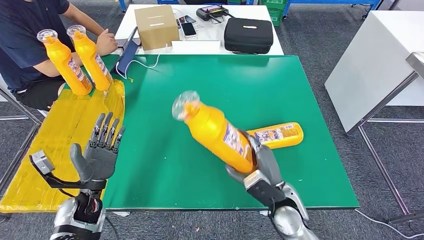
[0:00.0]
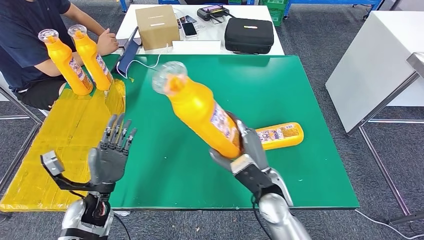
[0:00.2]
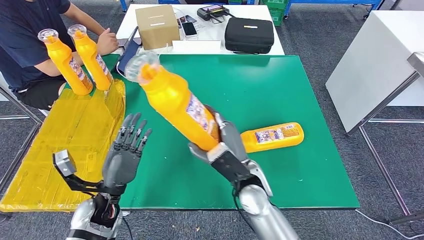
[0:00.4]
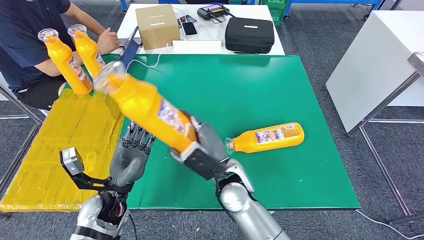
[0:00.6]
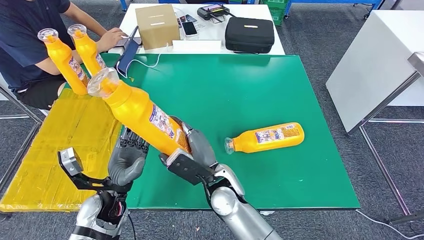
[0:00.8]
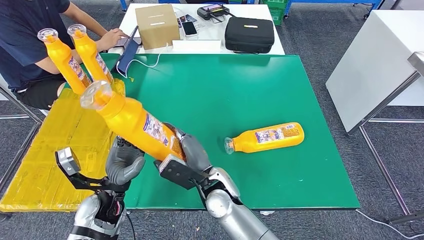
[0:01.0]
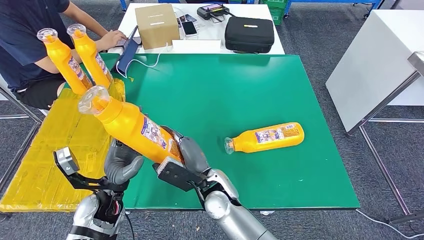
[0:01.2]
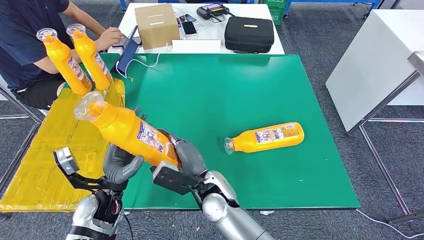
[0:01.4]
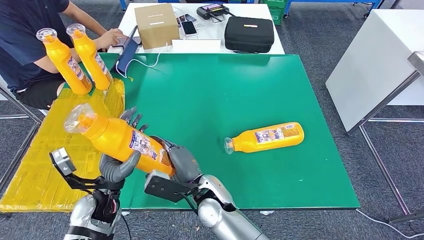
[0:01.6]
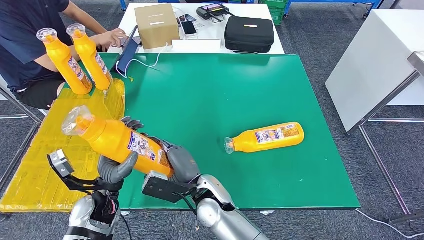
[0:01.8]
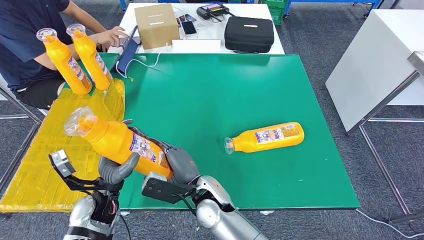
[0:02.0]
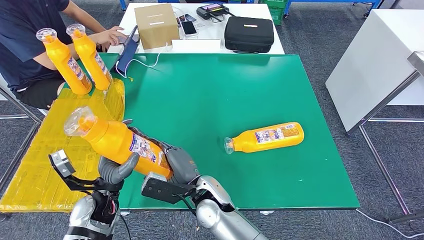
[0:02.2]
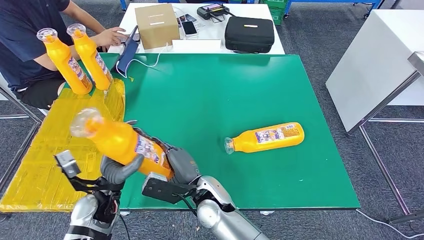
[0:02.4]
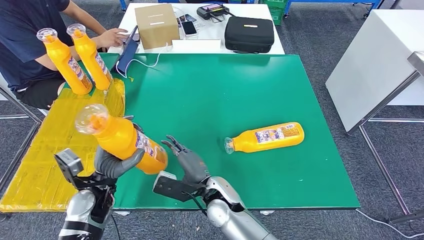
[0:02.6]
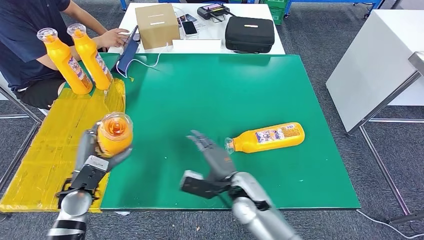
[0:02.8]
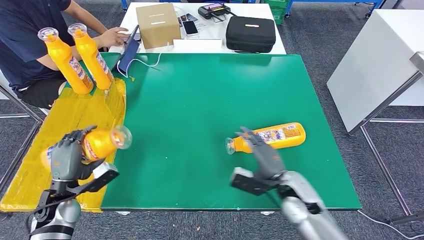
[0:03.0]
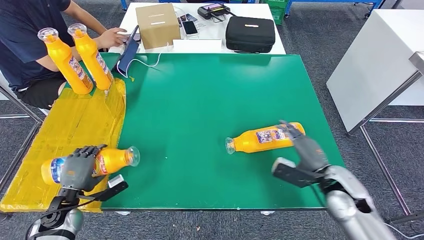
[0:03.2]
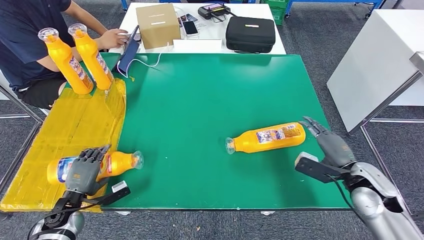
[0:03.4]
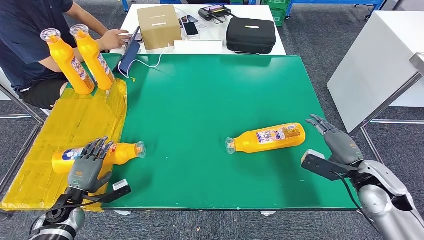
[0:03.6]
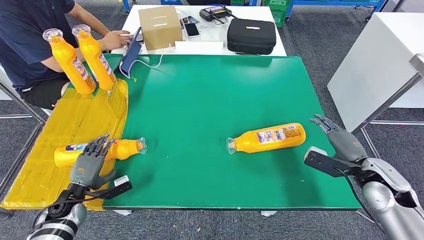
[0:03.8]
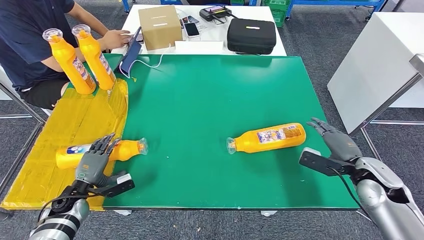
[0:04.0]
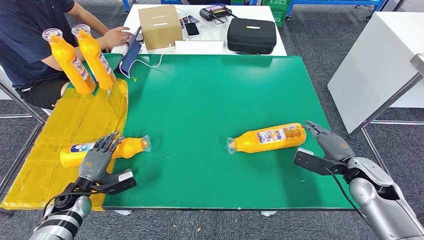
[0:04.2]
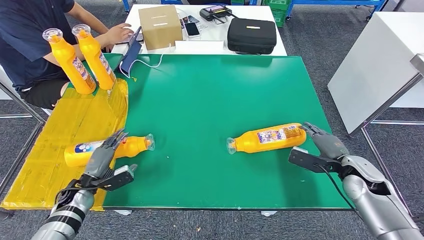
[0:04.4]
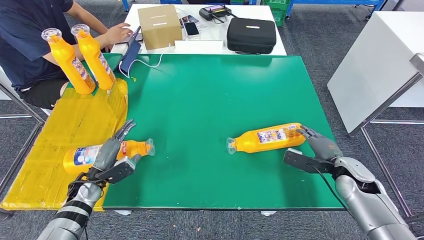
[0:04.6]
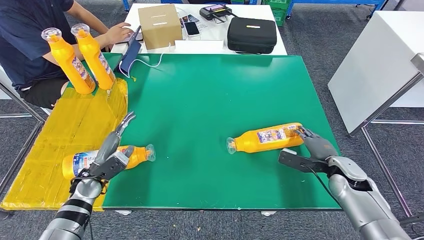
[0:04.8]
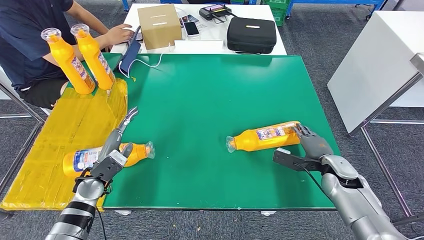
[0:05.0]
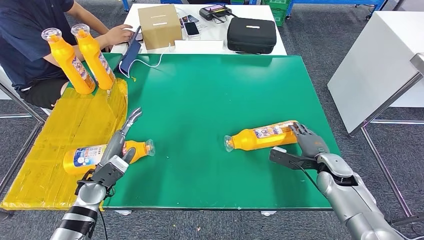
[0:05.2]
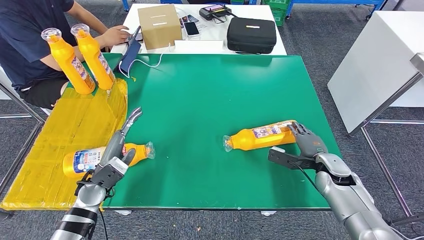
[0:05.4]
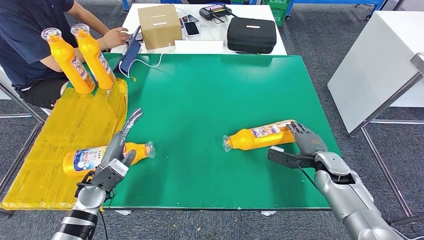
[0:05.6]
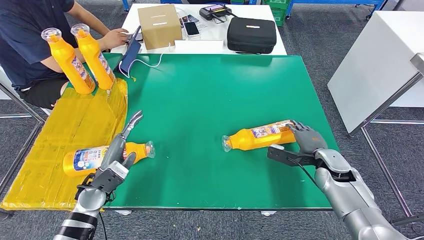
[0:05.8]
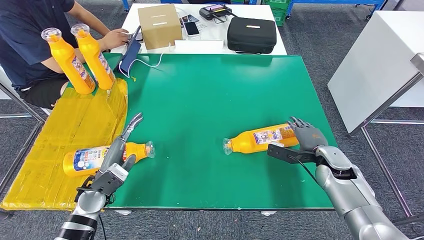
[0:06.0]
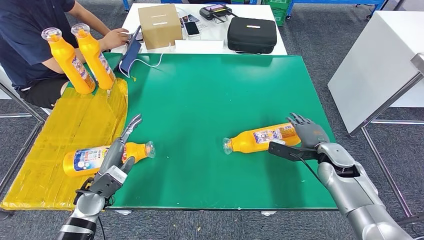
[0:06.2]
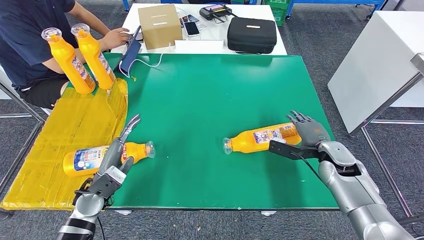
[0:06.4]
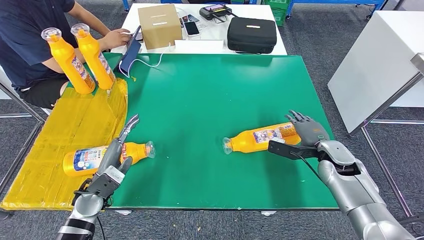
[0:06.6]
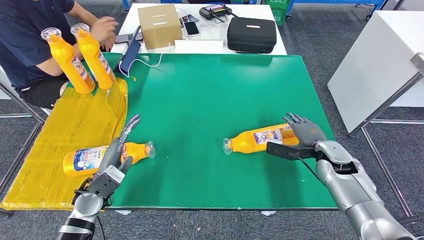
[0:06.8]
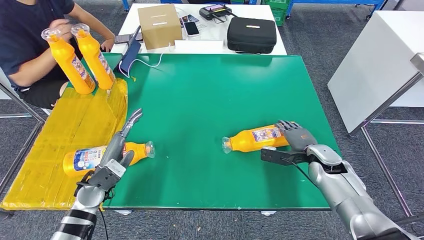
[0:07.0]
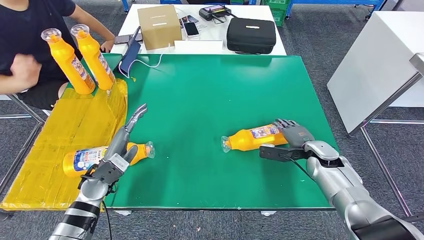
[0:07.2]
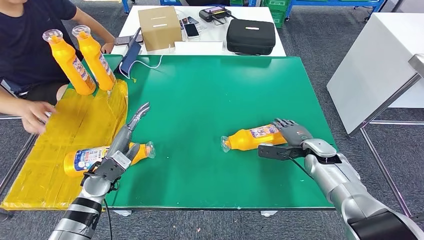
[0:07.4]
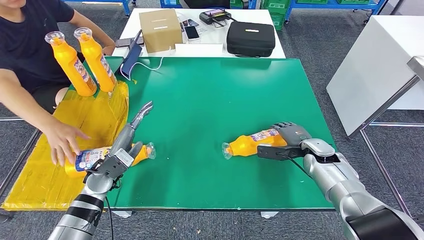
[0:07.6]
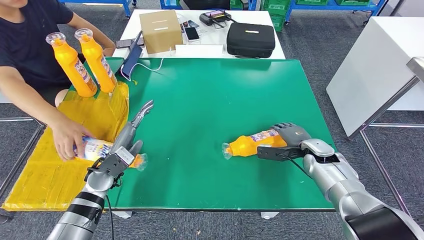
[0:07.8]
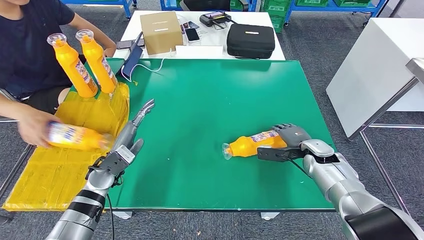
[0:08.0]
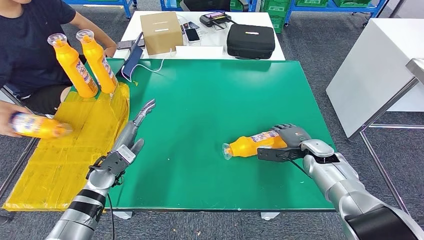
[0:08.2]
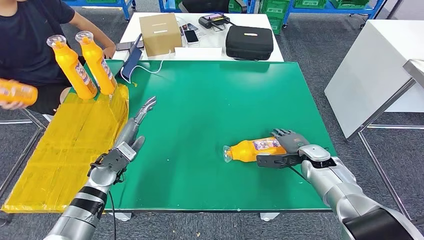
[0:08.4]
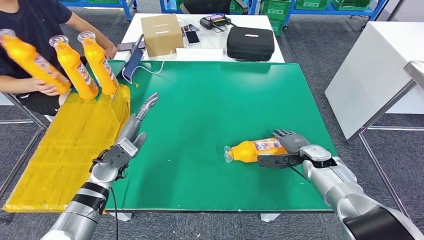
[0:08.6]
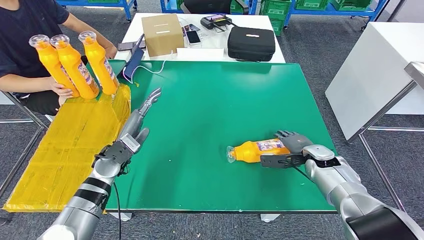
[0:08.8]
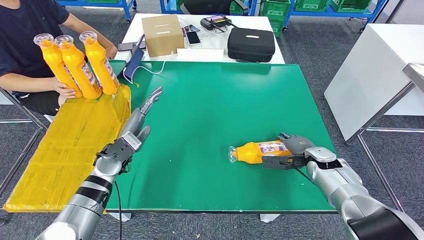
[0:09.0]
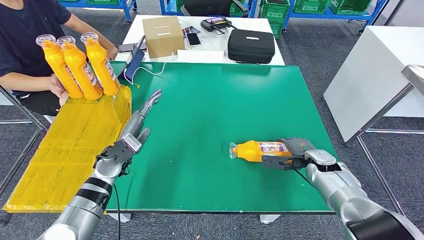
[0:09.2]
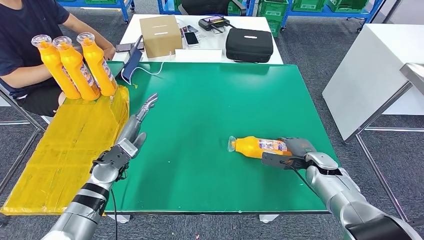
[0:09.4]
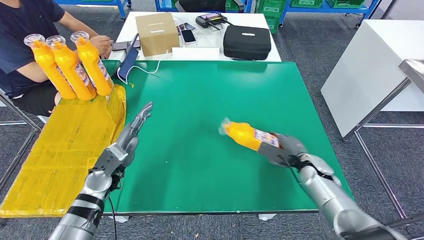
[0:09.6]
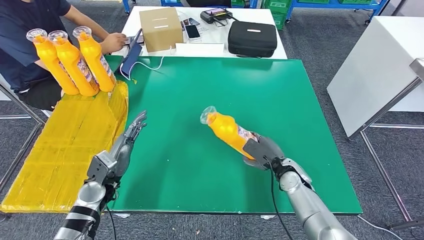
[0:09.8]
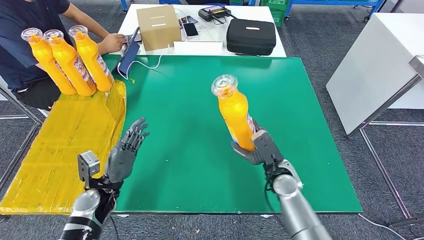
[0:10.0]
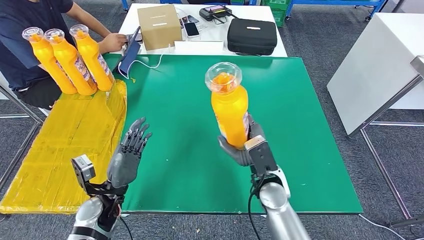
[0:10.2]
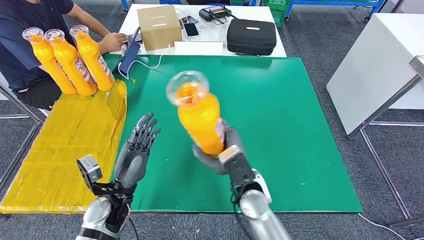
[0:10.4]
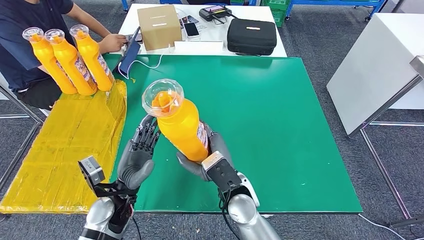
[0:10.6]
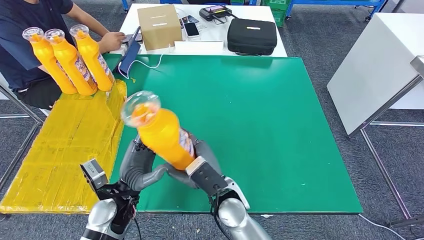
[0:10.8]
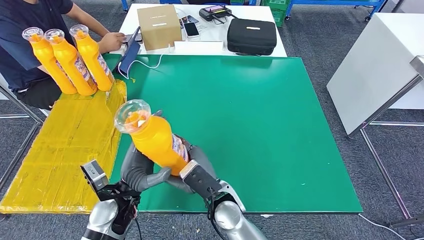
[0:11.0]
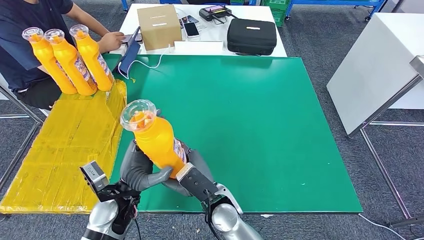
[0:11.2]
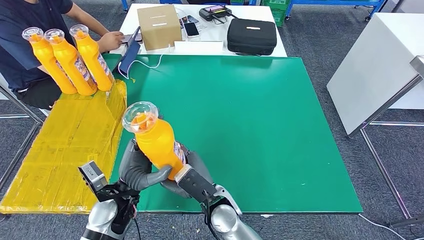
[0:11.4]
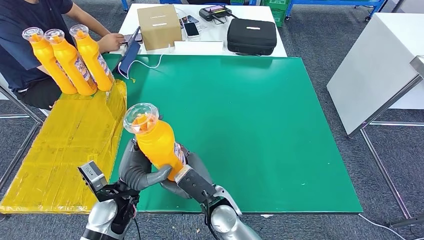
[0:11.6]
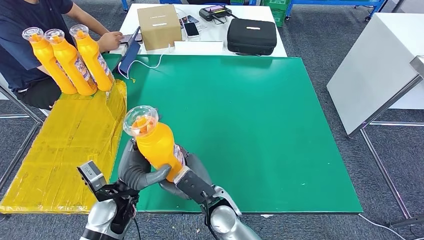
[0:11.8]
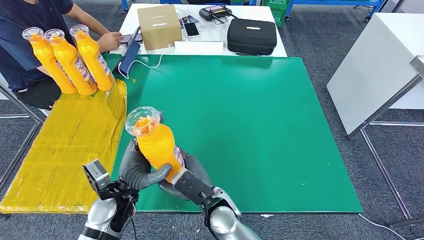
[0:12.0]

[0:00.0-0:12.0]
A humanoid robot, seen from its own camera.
Step, 0:01.2 to 0:04.8: Flip the fast-moving consumer goods bottle to the front side.
Step, 0:07.8 to 0:10.6: Pick up the fast-moving consumer goods bottle from the table.
0:04.4 to 0:06.0: The left hand moves to the right and upward, about 10 cm. Meanwhile the right hand shifts by some 5 cm.
0:10.4 to 0:12.0: The right hand is displaced to the left by about 5 cm.

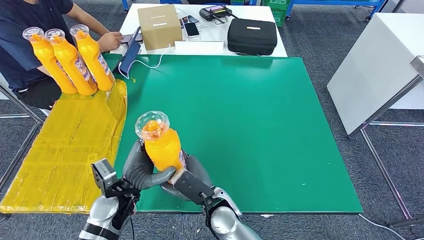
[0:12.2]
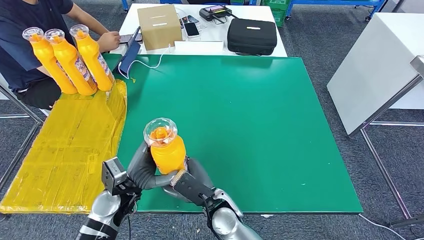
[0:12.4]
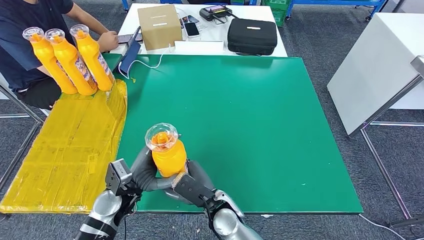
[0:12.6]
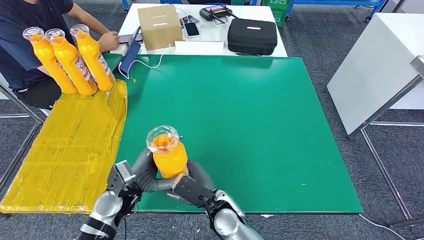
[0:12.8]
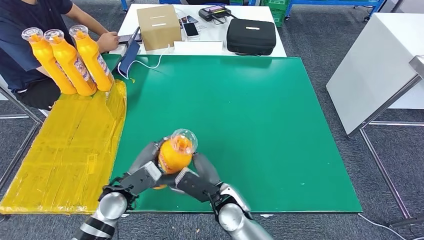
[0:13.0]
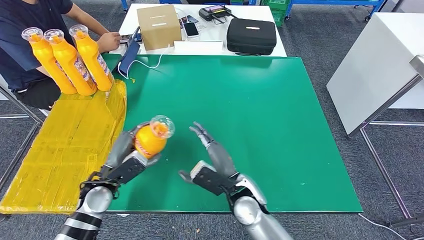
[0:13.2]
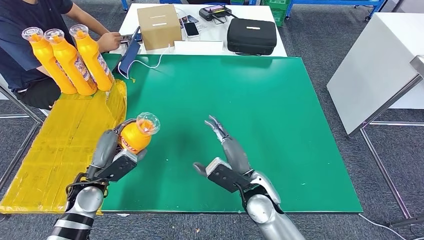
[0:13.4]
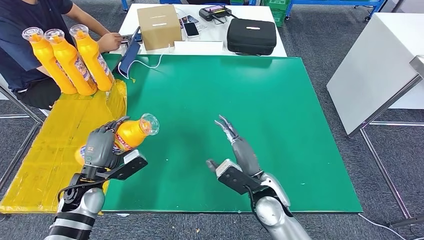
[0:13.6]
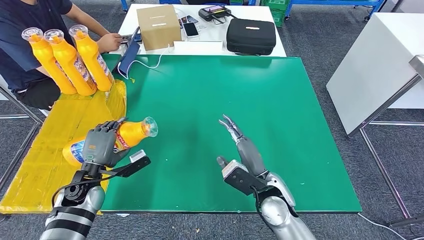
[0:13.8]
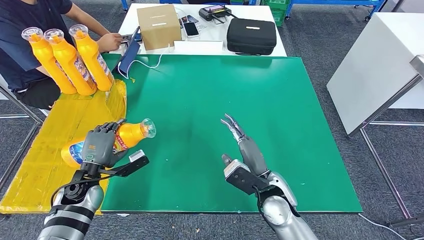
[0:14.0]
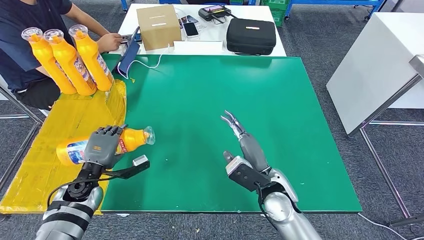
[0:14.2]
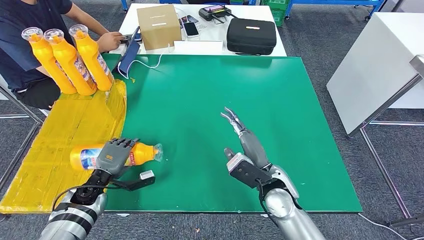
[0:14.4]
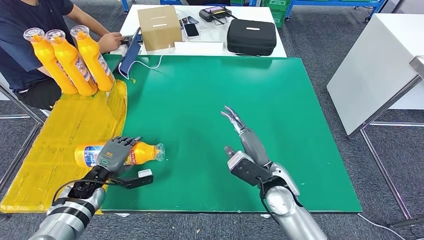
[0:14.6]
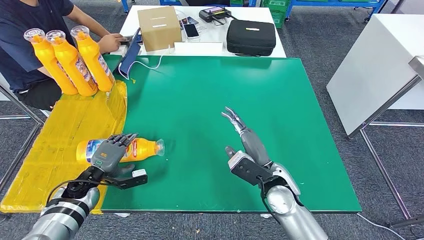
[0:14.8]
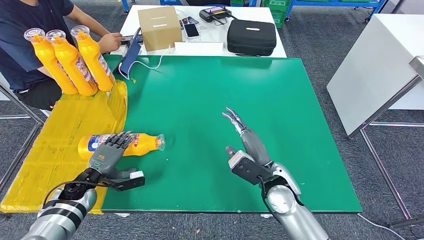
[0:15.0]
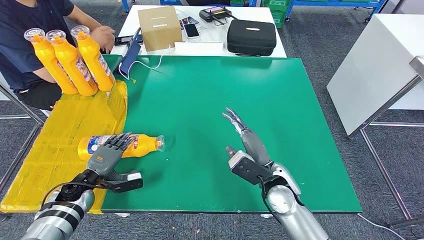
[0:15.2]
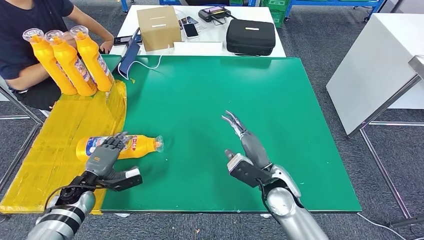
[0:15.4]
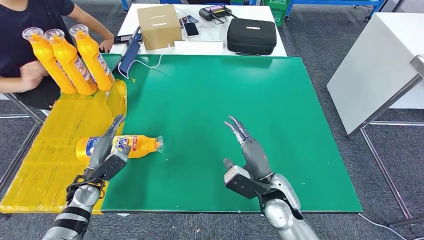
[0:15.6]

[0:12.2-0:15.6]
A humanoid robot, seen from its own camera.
Step, 0:12.2 to 0:15.6: Flip the fast-moving consumer goods bottle to the front side.
0:12.2 to 0:13.8: The right hand is displaced to the right by some 15 cm. Meanwhile the left hand heads to the left, covering approximately 10 cm.
